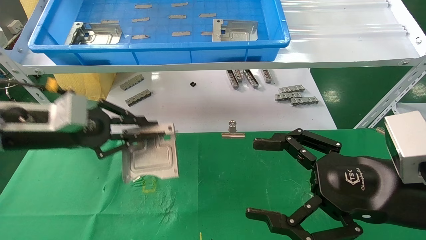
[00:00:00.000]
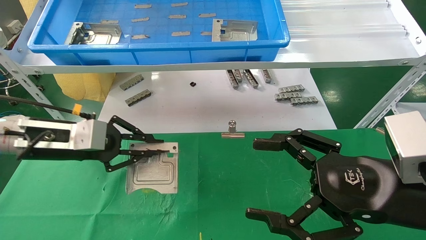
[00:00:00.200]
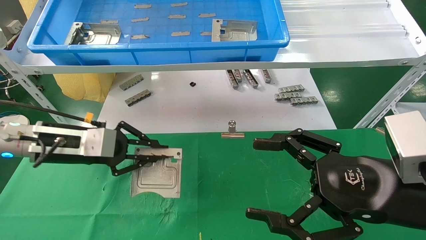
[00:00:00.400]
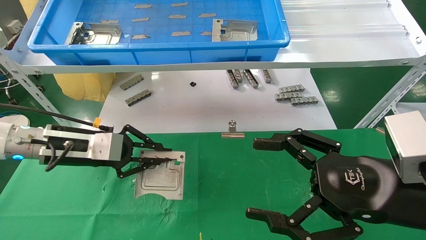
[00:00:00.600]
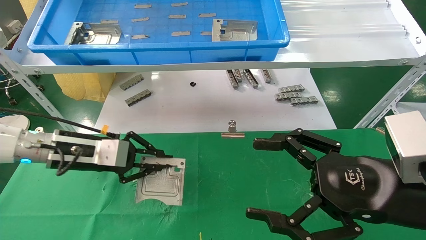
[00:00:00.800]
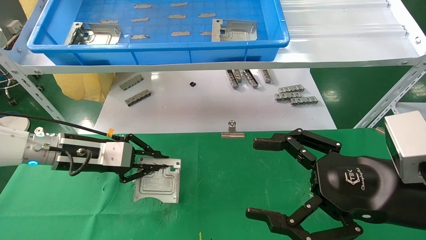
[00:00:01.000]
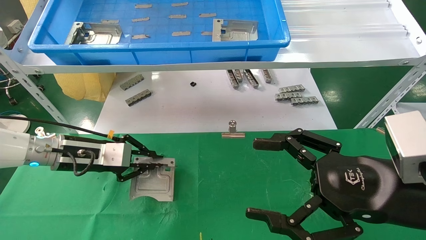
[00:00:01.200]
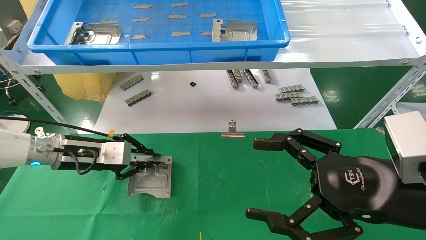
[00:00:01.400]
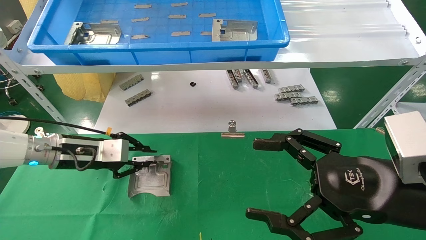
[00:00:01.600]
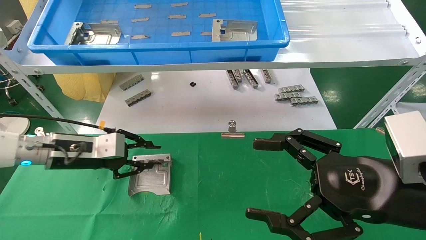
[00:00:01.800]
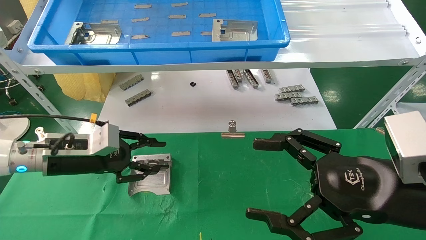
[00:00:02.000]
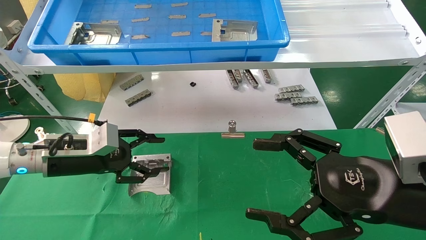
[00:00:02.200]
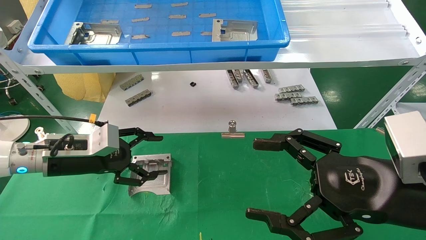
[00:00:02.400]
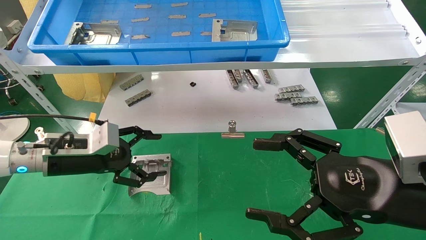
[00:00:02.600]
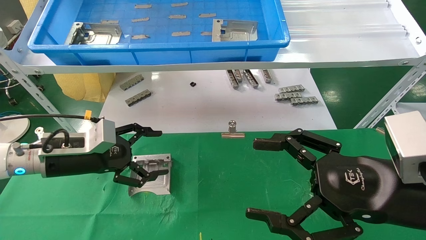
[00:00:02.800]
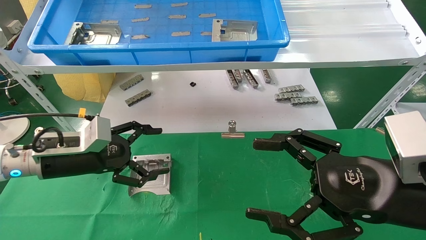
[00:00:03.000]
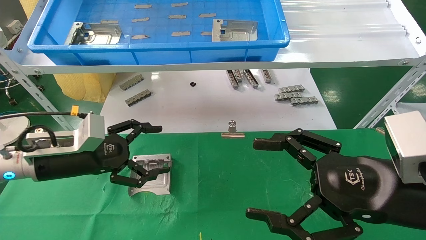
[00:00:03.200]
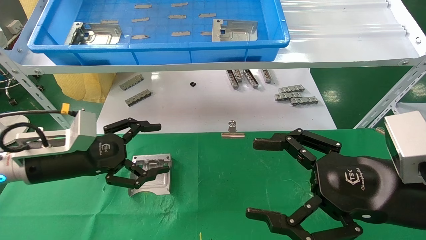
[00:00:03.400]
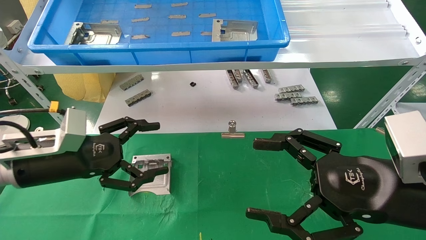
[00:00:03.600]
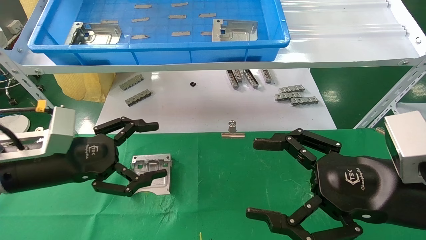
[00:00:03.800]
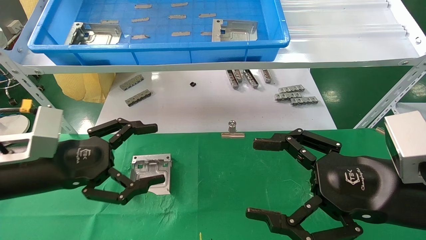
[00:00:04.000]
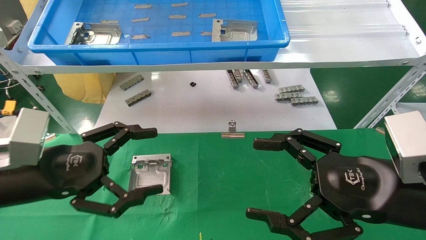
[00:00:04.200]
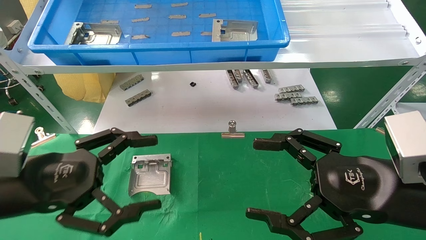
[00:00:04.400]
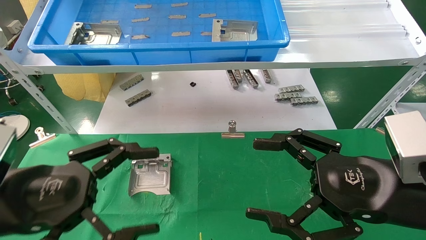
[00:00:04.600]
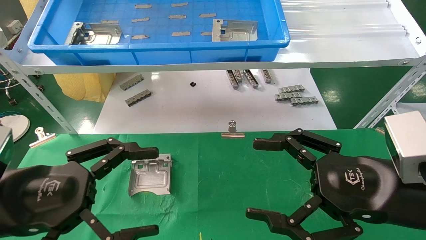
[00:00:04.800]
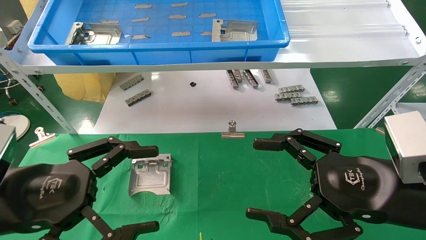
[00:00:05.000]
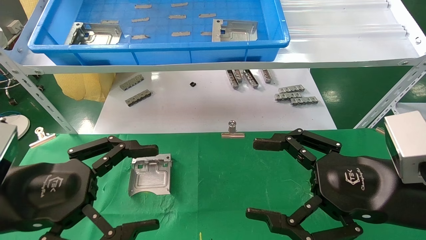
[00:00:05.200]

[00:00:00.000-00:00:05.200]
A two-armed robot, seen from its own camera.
Task of the whole recording: use the mechanical arm to pick up the parts and place them on the table.
00:00:00.000 to 00:00:01.800: The left gripper moves downward and forward, some 10 cm.
00:00:01.800 to 00:00:03.400: The left gripper moves backward, approximately 5 cm, and opens.
00:00:03.400 to 00:00:05.200: The left gripper heads backward, covering about 15 cm.

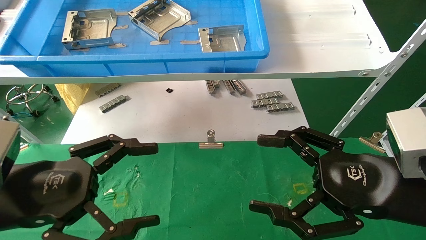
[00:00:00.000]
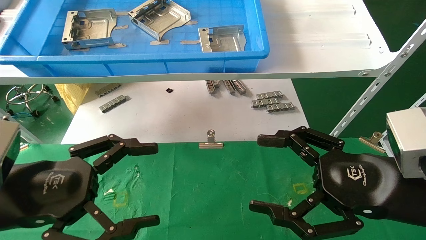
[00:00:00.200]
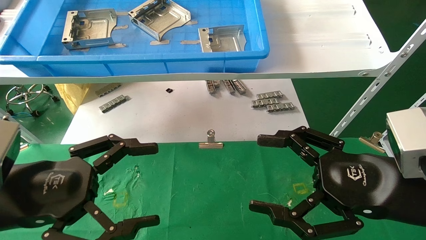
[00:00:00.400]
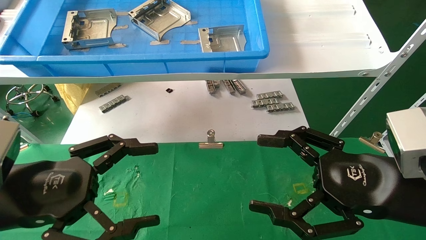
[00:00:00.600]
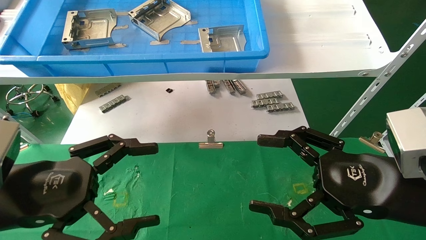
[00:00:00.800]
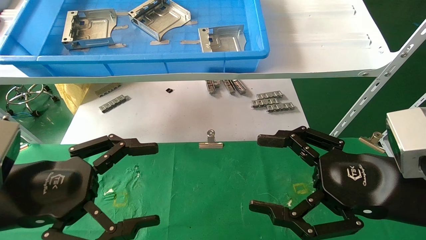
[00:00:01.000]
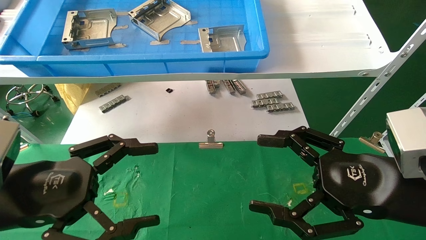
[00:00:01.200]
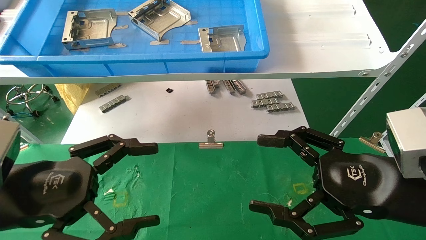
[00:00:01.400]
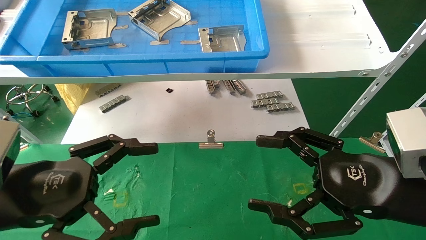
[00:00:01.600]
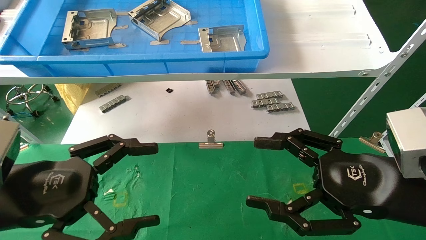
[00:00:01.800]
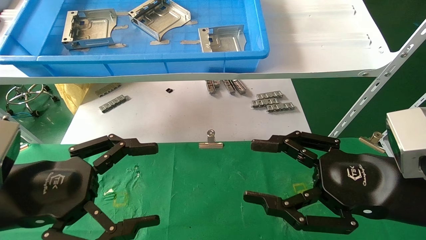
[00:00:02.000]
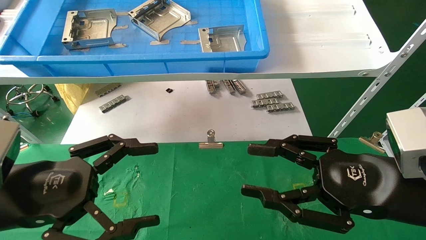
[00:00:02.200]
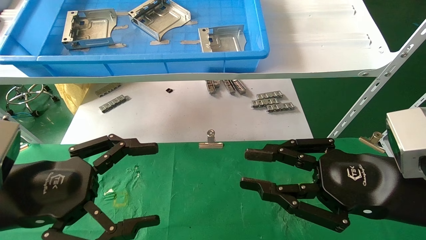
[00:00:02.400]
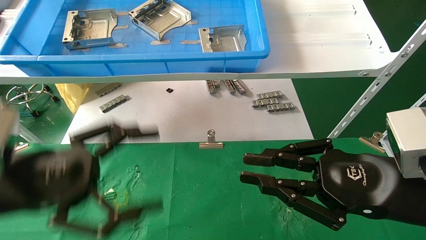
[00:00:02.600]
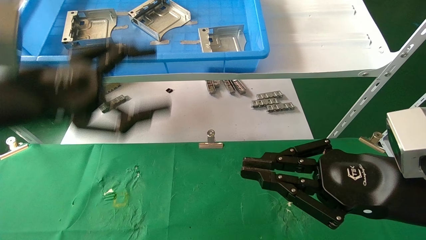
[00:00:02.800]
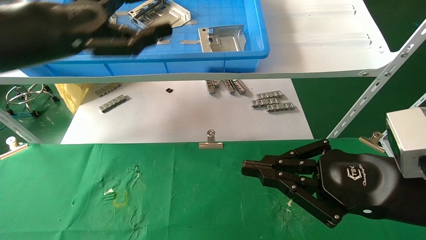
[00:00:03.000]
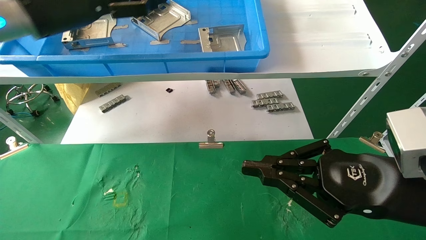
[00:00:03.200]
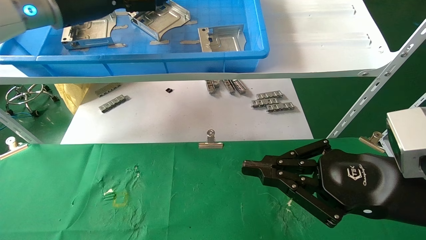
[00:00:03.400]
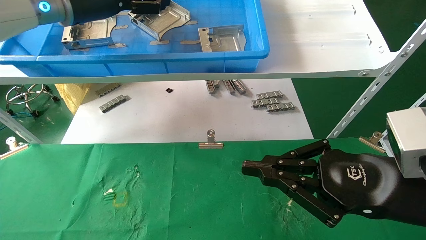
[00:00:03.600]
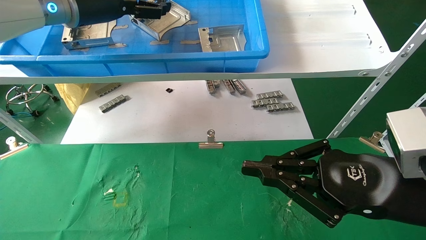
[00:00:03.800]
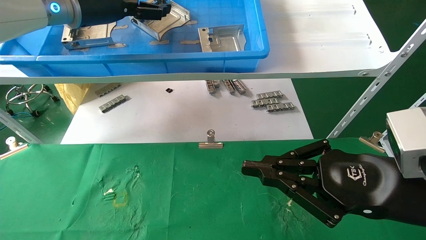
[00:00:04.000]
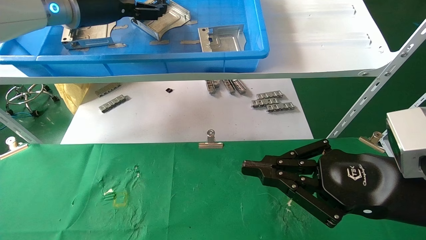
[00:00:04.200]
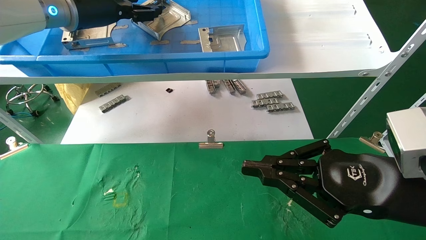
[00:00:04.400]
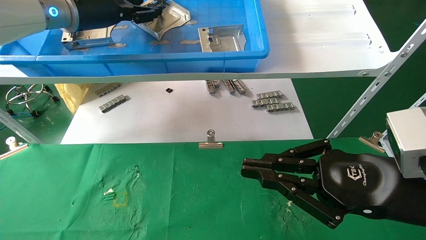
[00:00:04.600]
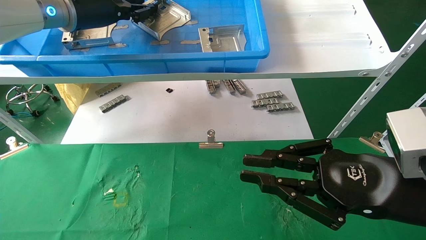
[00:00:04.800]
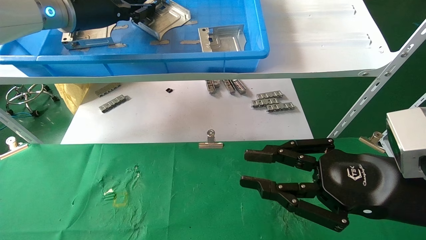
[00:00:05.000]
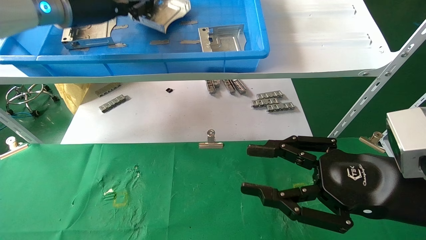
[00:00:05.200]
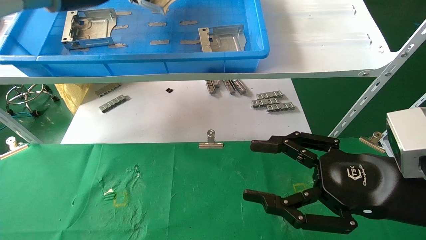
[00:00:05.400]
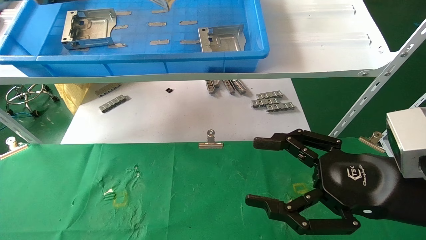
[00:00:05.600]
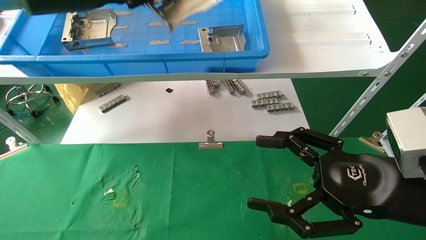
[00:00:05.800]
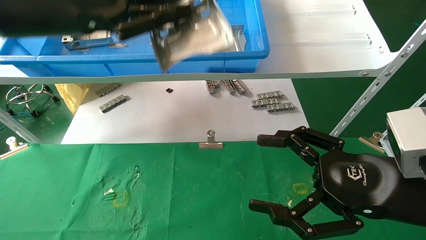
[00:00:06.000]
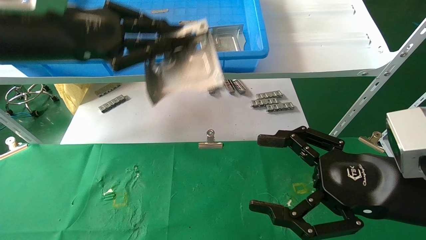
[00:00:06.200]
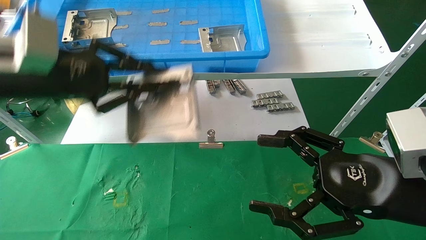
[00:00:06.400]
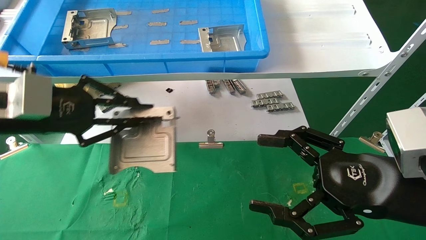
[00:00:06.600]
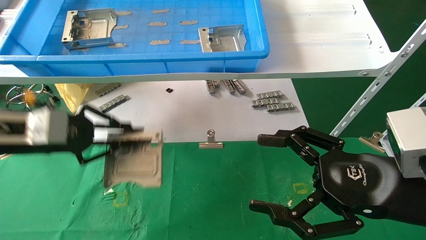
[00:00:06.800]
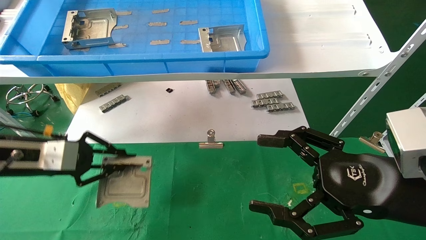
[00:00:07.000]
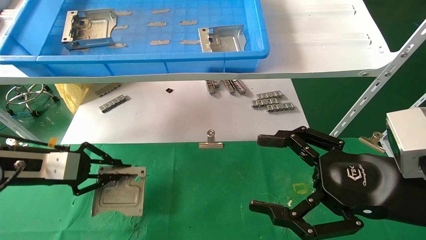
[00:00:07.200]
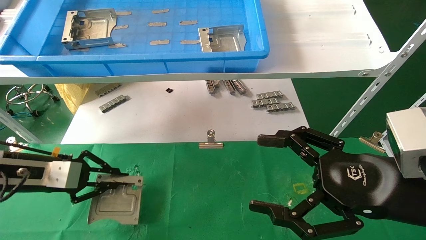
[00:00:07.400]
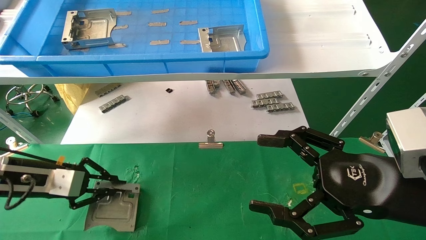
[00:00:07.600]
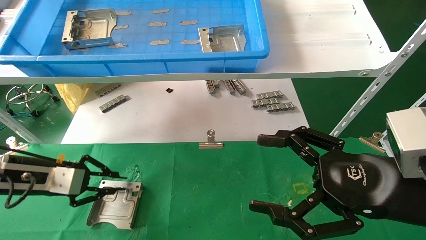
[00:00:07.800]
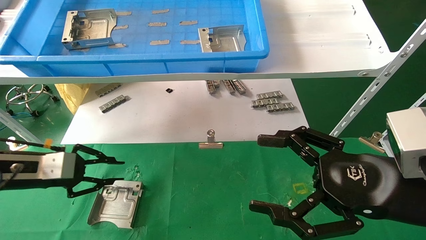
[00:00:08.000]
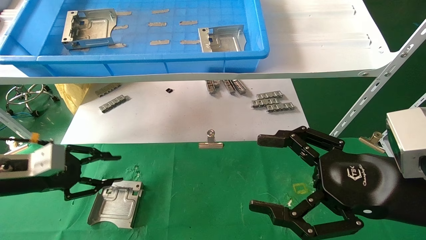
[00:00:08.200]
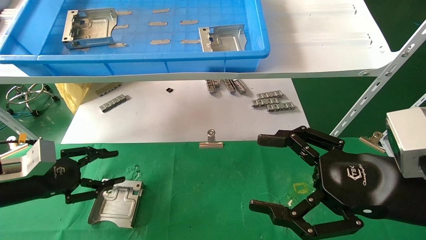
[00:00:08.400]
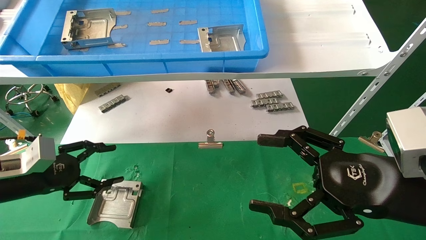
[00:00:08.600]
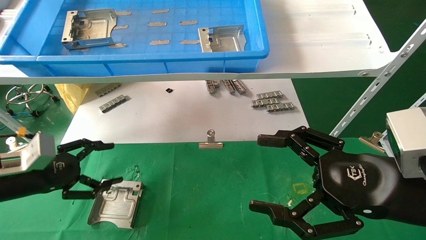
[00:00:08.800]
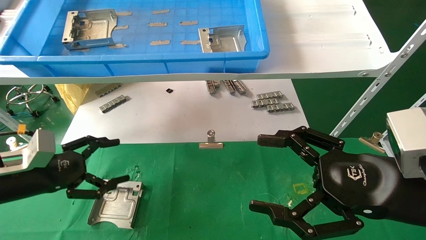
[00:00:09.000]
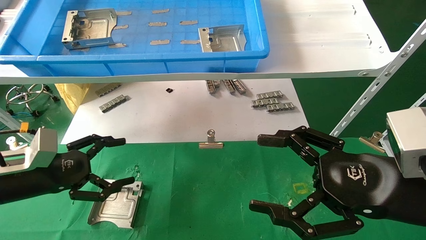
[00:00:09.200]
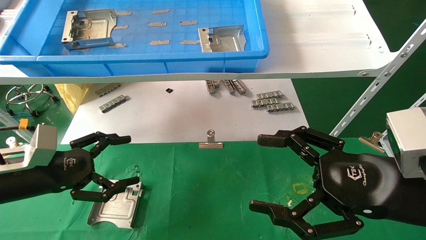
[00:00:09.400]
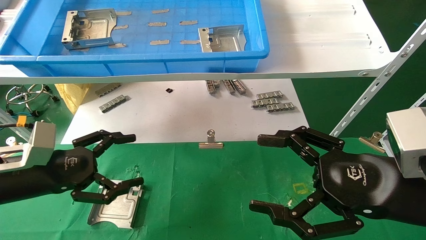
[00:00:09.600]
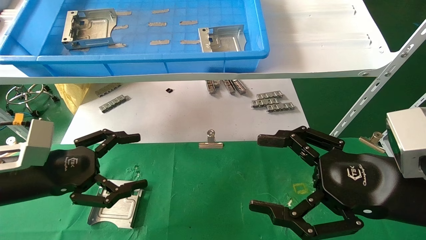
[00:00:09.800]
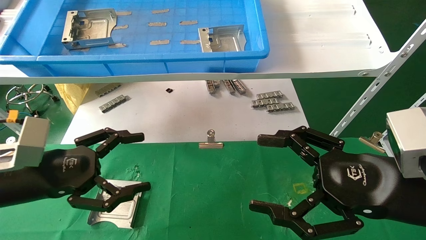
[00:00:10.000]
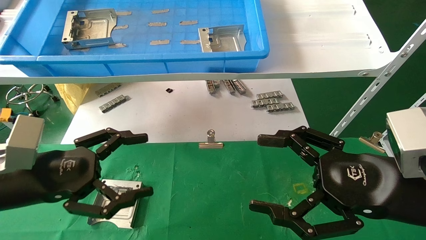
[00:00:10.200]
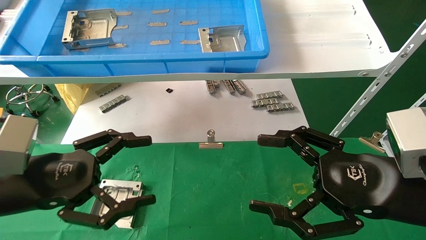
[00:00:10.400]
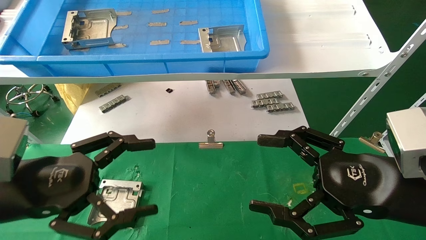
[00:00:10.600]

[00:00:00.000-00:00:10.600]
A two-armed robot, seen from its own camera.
Task of the whole recording: use the mechanical arm to pick up the parts and place them on the table.
Step, 00:00:03.000 to 00:00:05.000: Pick up the hard drive bracket from the feeding area.
Step, 00:00:05.200 to 00:00:07.800: Place the hard drive bracket into the box.
00:00:00.000 to 00:00:01.600: The two grippers keep their place.
00:00:01.600 to 00:00:03.000: The left gripper is displaced upward and forward by approximately 20 cm; the right gripper closes up.
00:00:03.000 to 00:00:04.600: The left gripper moves forward, about 10 cm, and closes.
00:00:04.600 to 00:00:06.000: The right gripper opens, while the left gripper is displaced backward by roughly 10 cm, and closes its fingers.
00:00:06.000 to 00:00:07.600: The left gripper is displaced downward and to the left by roughly 30 cm.
00:00:07.600 to 00:00:09.000: The left gripper opens.
00:00:09.000 to 00:00:10.600: The left gripper moves backward, to the right and upward, some 15 cm.
